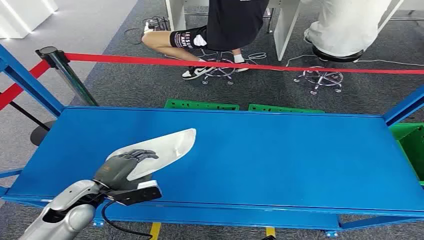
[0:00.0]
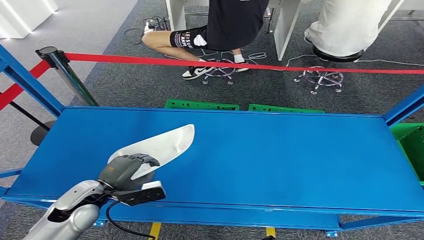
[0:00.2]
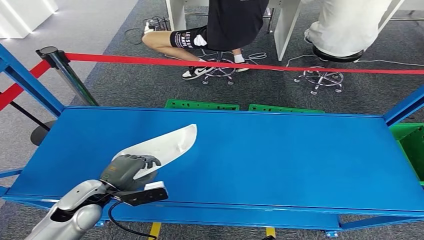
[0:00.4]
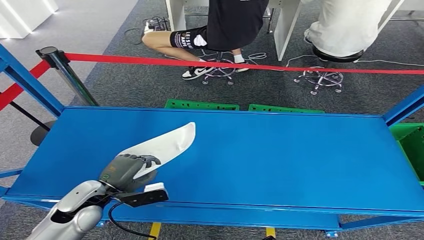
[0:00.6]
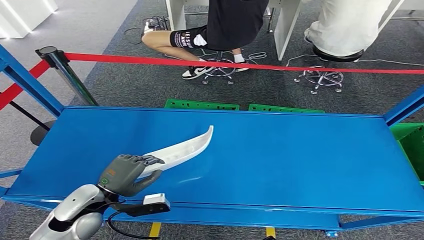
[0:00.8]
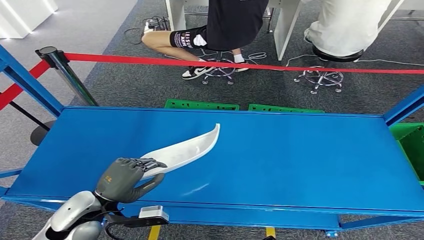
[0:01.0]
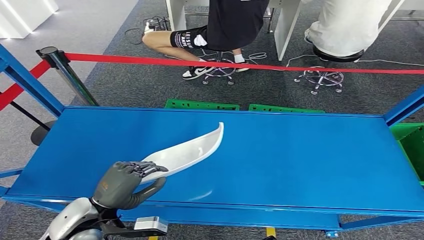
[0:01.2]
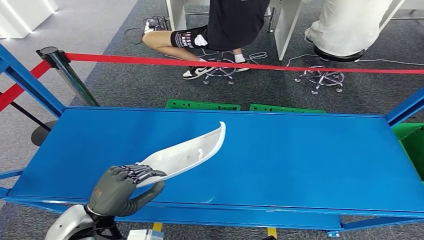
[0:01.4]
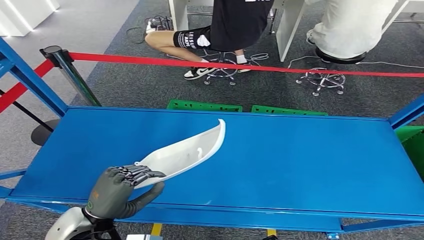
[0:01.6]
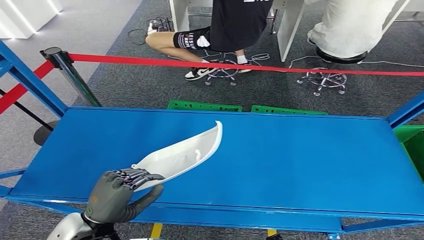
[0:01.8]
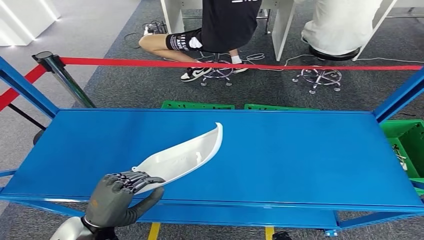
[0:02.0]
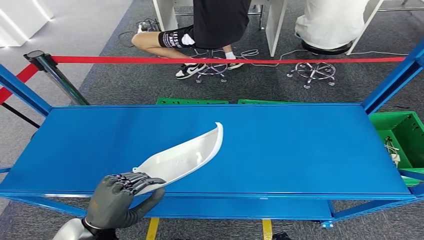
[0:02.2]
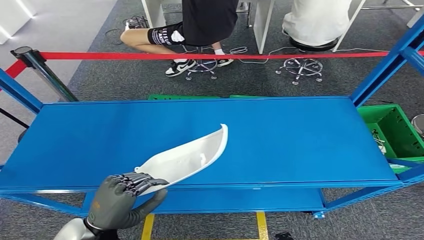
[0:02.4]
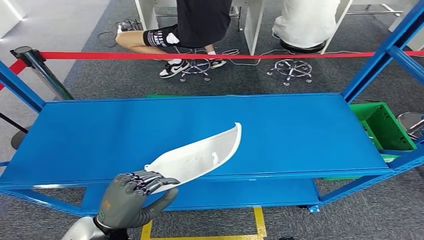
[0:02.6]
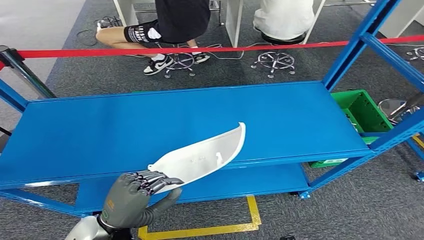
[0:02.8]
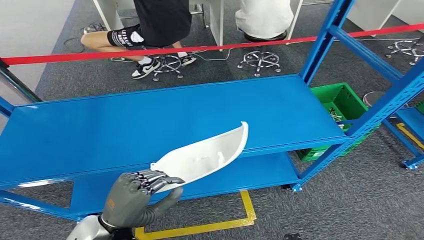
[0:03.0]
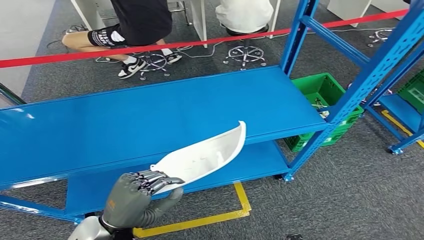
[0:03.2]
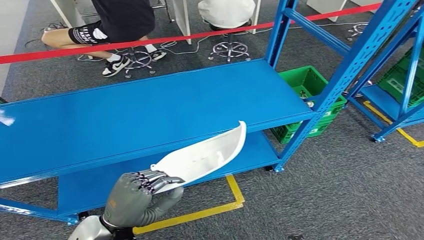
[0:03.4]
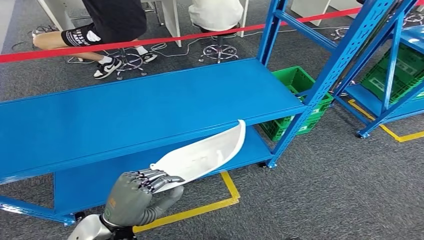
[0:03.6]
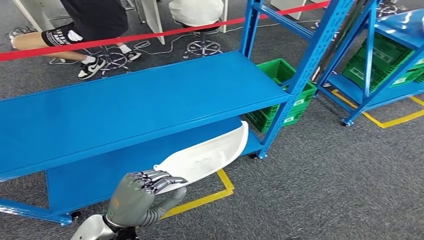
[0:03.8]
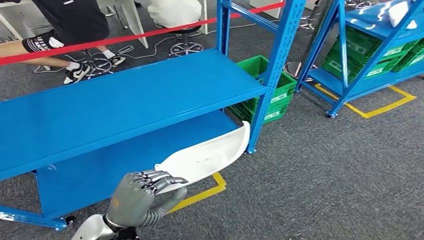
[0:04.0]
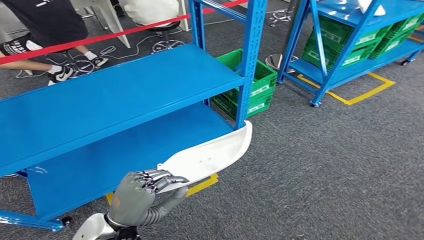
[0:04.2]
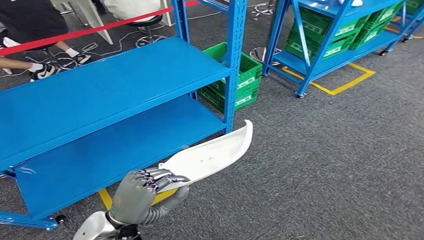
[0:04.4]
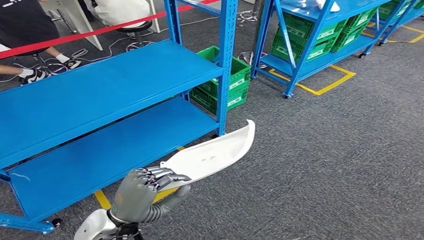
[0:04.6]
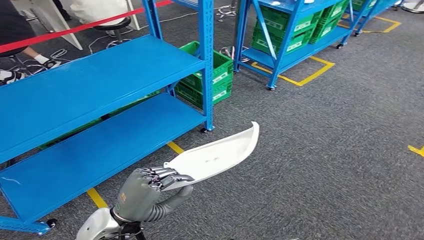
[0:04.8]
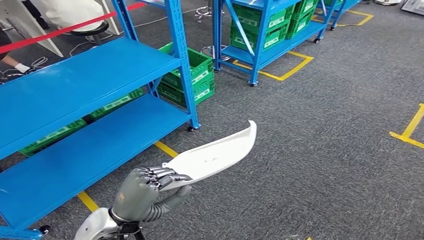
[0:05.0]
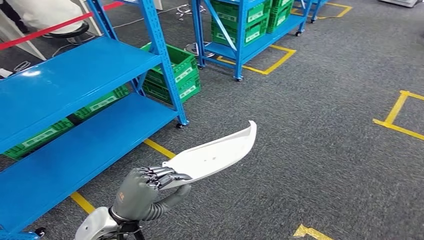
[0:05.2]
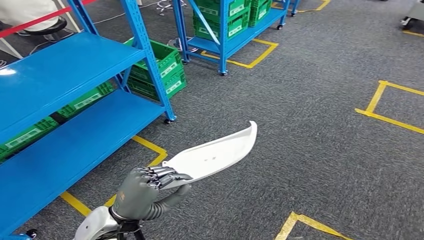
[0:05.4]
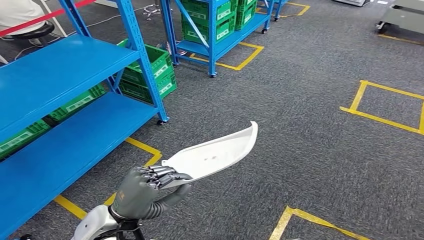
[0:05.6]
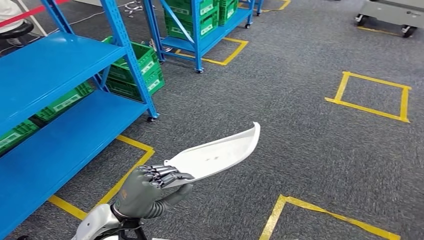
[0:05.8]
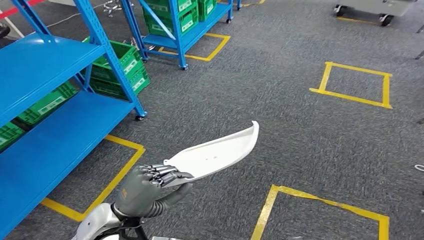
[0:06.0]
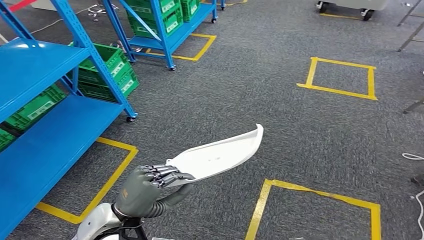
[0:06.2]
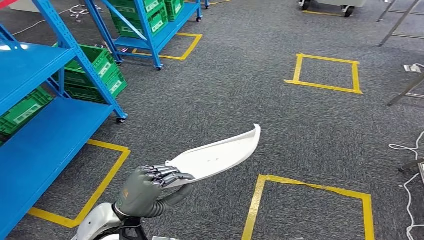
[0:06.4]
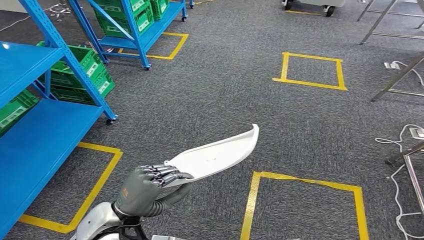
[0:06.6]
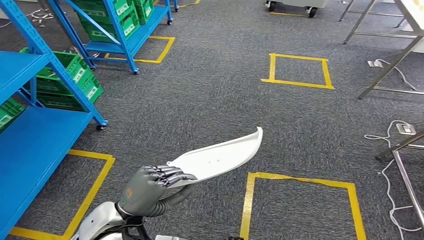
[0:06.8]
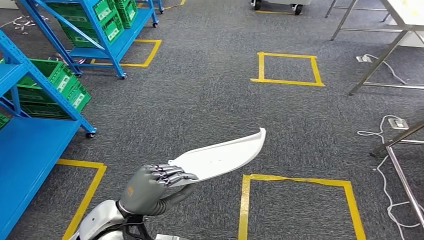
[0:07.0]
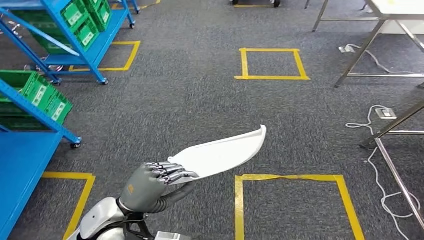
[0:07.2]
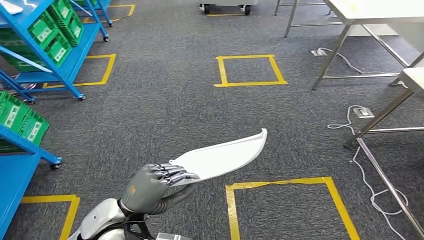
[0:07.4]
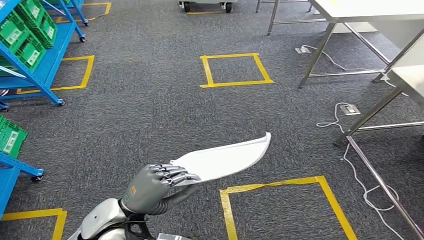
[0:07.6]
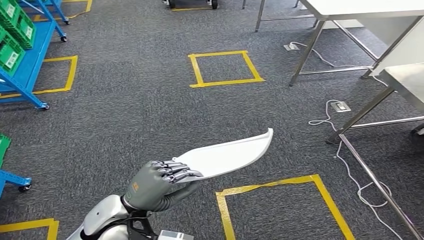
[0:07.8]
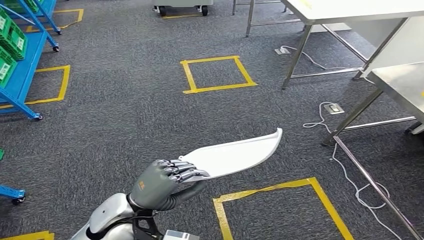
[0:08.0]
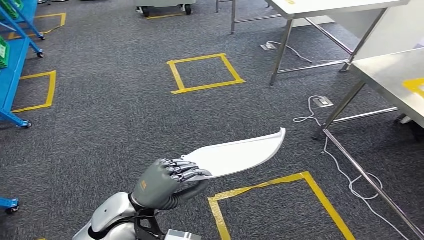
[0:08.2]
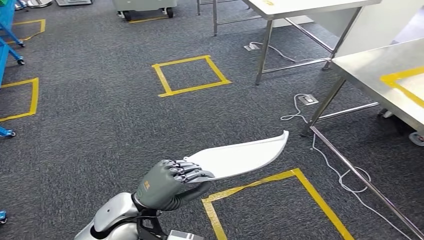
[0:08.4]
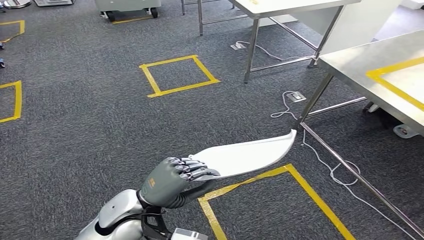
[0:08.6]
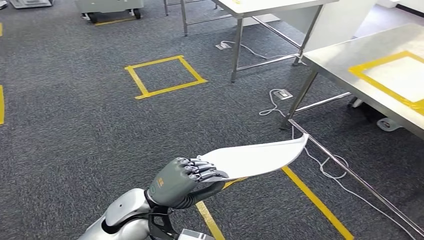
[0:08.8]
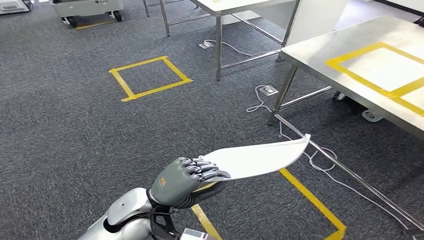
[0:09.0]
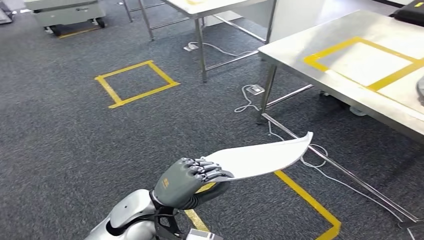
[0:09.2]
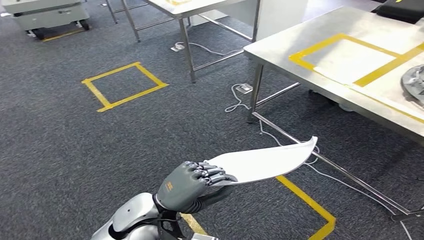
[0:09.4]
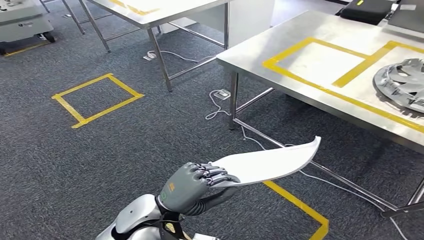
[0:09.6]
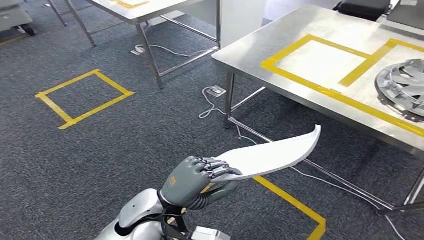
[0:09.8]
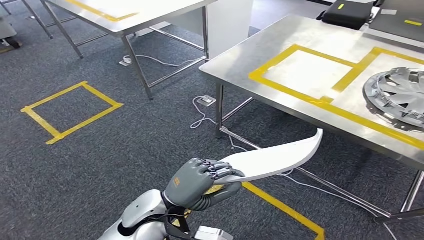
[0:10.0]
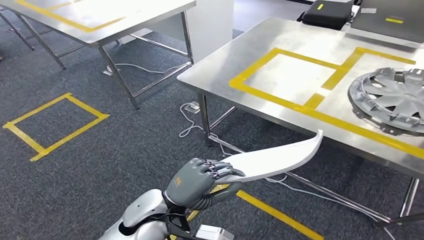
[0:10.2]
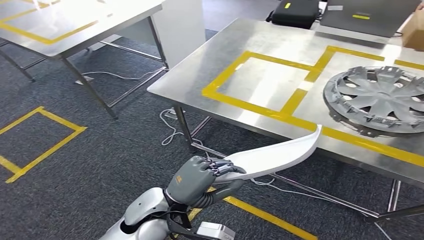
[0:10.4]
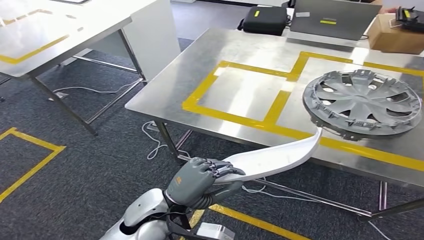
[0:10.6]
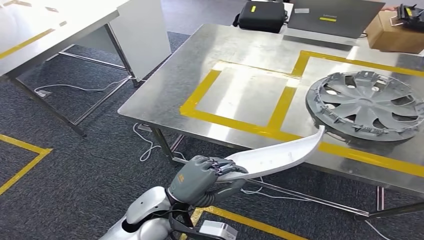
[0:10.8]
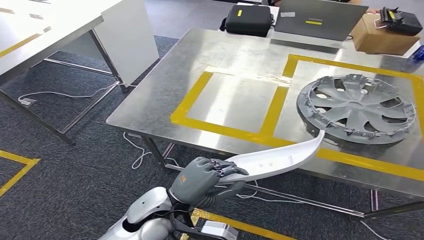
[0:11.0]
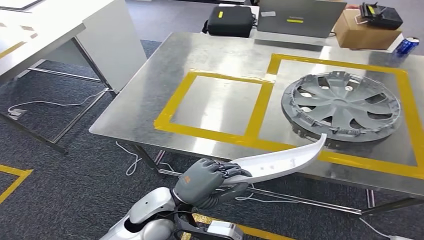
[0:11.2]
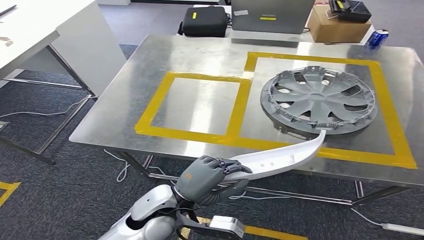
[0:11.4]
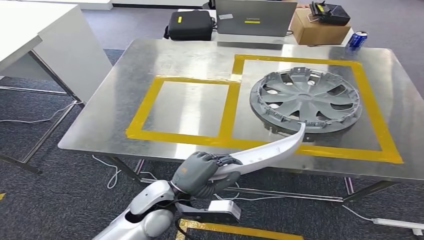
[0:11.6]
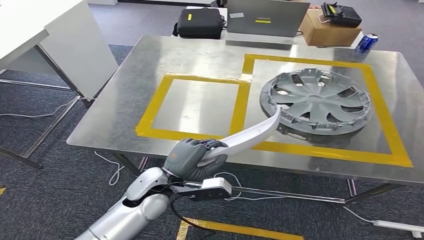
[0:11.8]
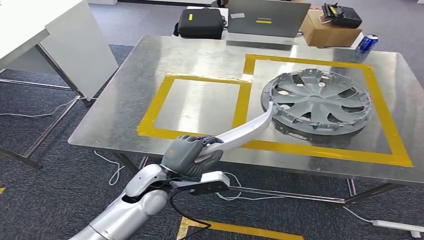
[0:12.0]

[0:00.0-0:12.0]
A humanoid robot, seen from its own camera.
Step, 0:00.0 to 0:03.2: Pick up the small component from the shelf.
Step, 0:03.4 to 0:11.2: Move the small component to the workbench.

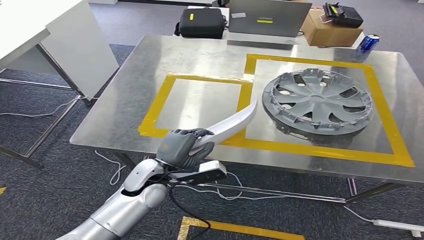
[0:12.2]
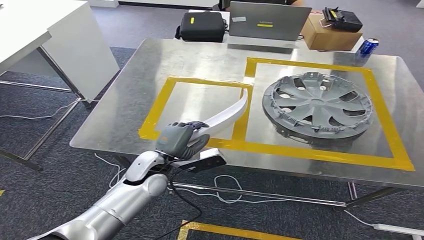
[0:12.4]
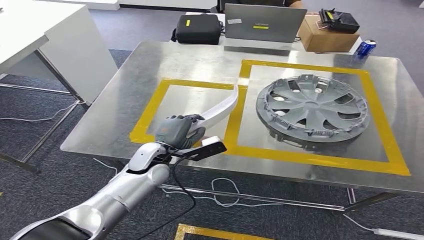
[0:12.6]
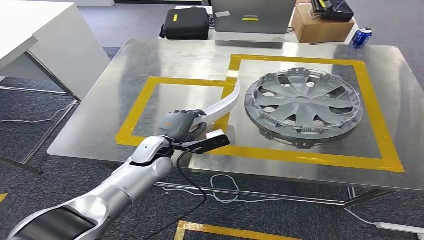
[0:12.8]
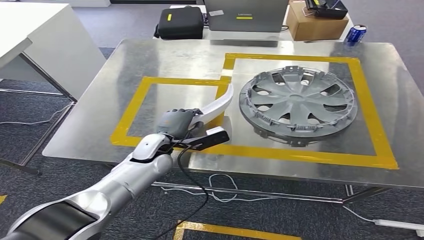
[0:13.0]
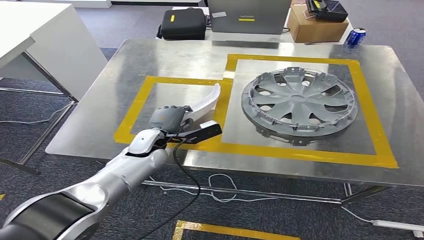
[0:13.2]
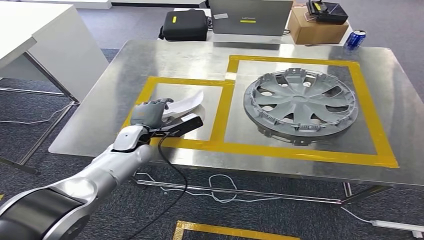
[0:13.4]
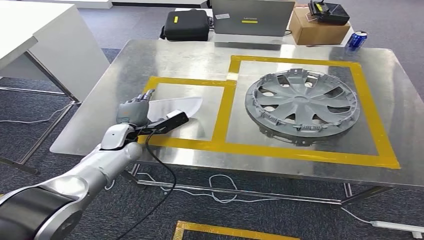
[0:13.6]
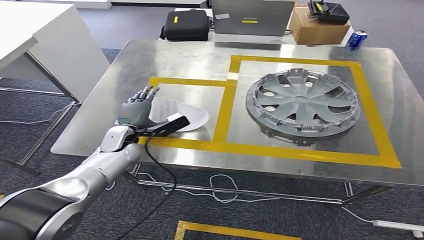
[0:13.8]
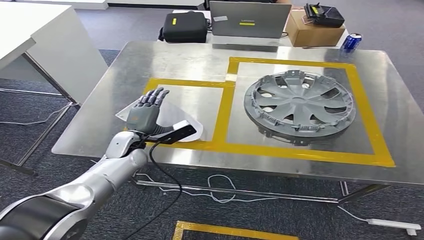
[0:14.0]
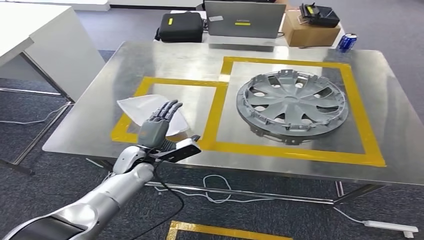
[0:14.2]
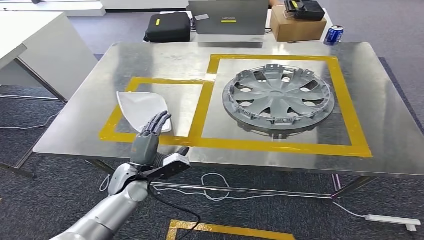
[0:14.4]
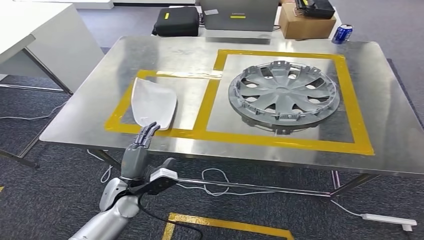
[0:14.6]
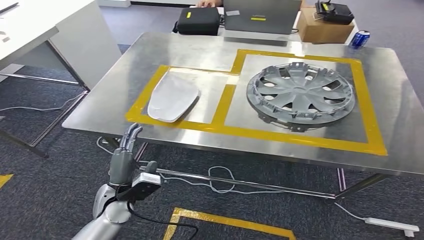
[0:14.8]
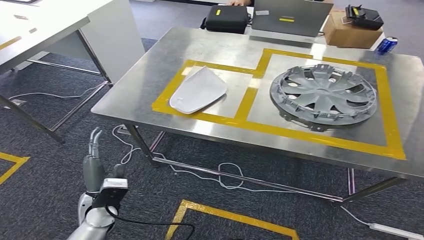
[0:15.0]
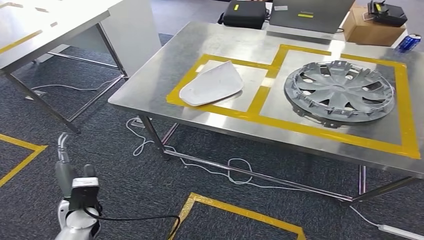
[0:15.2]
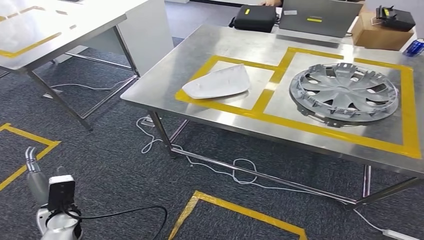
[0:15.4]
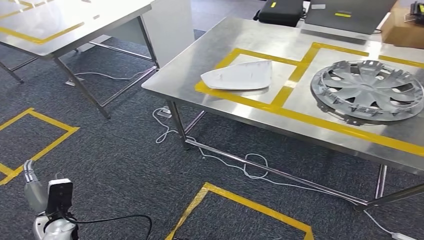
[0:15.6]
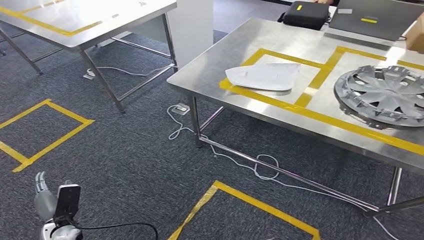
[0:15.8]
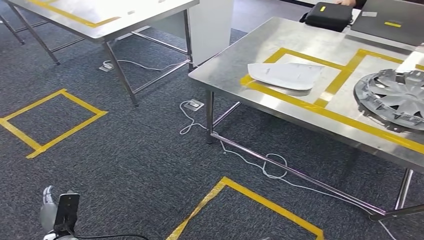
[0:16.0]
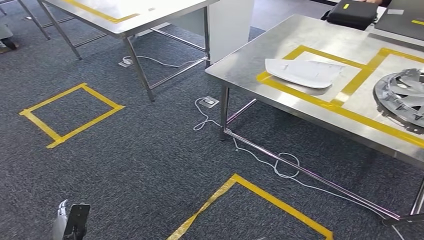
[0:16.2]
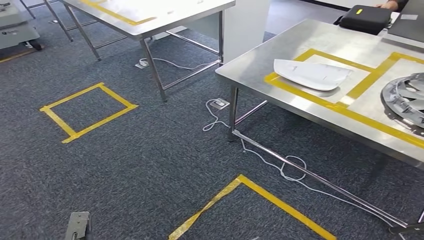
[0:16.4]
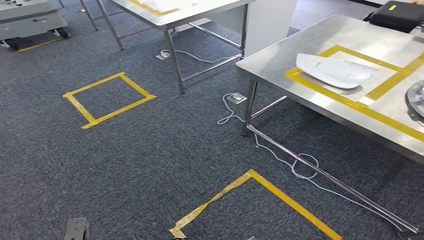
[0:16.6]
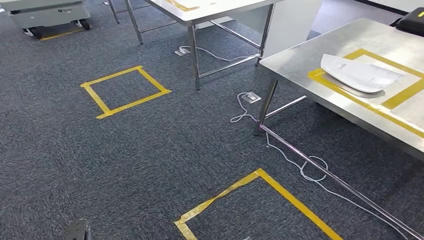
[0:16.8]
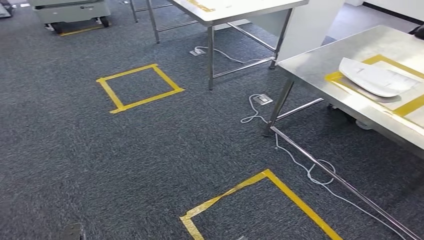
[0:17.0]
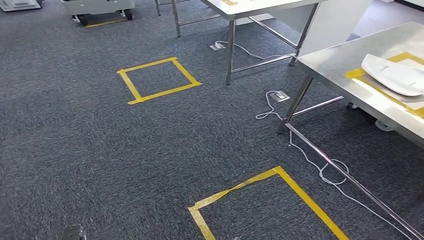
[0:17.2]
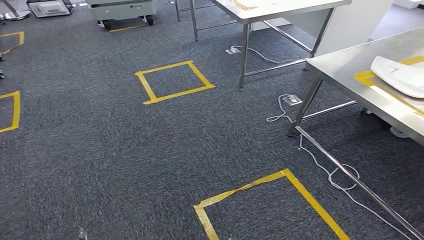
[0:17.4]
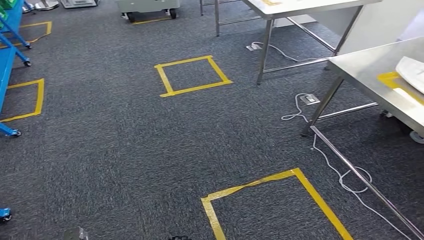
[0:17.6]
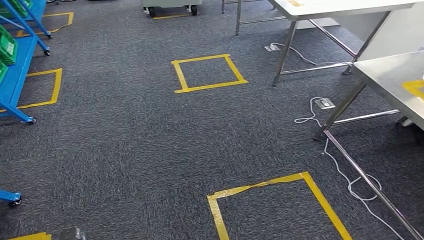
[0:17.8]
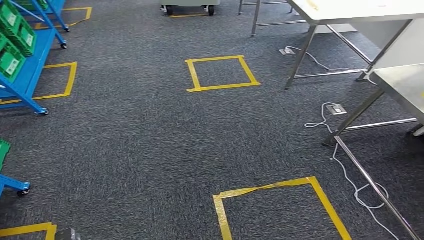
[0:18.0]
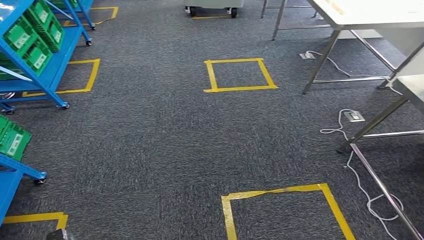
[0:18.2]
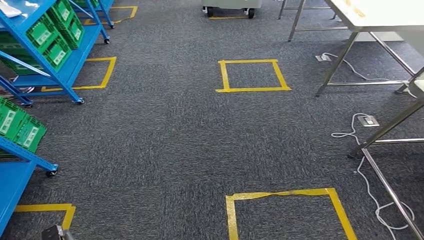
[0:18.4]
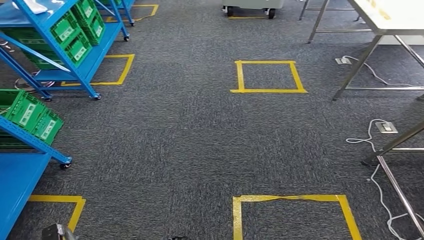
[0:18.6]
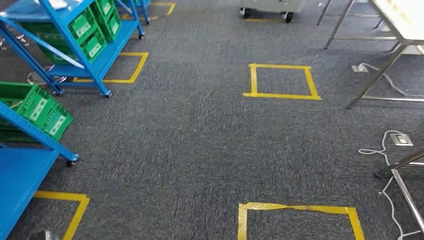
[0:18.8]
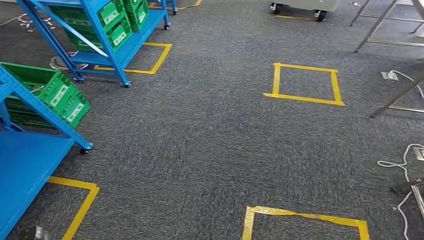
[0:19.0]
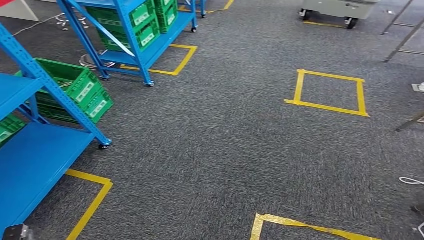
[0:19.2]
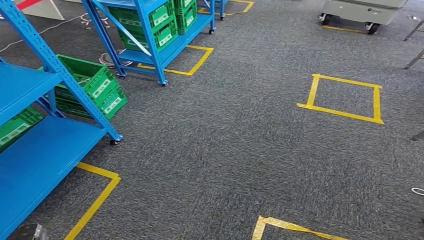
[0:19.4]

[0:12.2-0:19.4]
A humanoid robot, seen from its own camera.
Step, 0:12.2 to 0:15.8: Insert the small component into the corresponding slot on the workbench.
